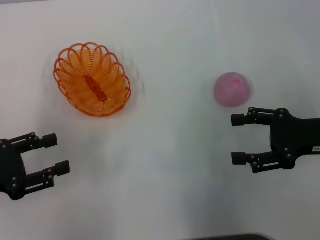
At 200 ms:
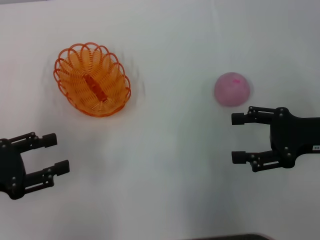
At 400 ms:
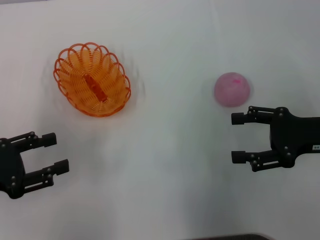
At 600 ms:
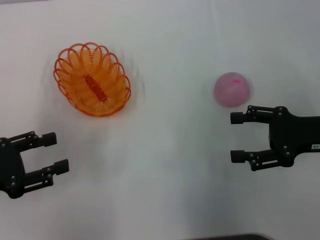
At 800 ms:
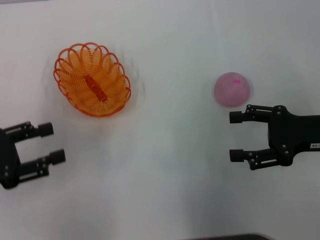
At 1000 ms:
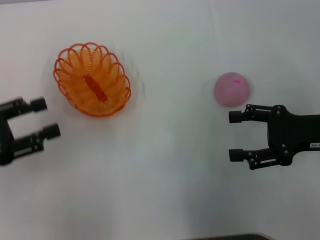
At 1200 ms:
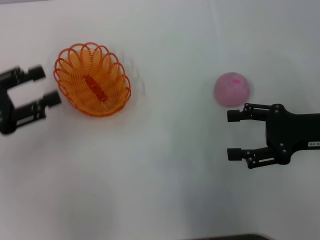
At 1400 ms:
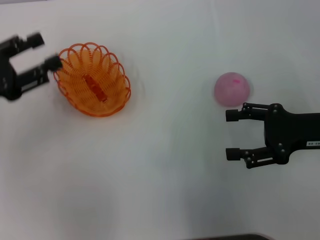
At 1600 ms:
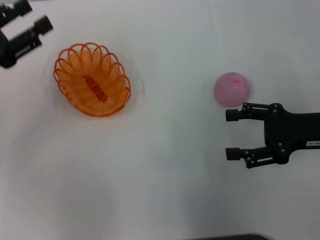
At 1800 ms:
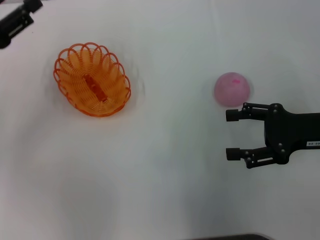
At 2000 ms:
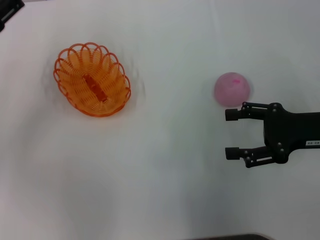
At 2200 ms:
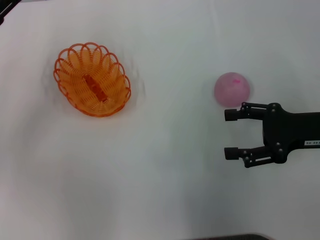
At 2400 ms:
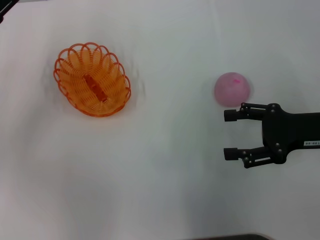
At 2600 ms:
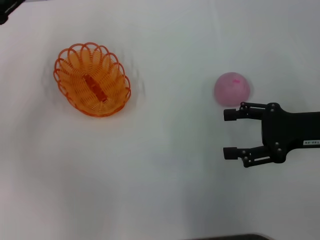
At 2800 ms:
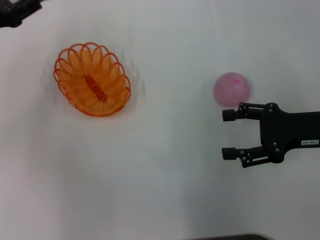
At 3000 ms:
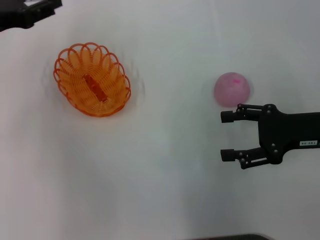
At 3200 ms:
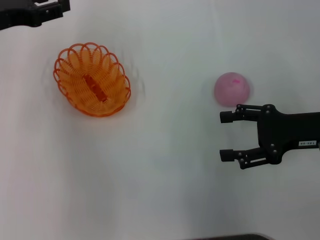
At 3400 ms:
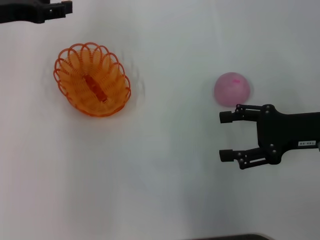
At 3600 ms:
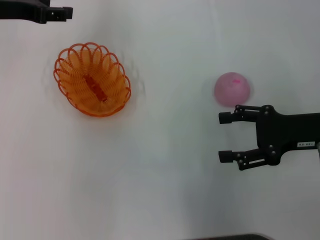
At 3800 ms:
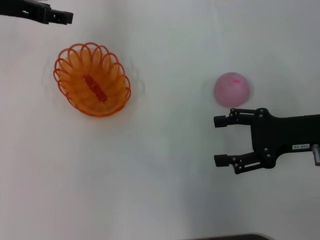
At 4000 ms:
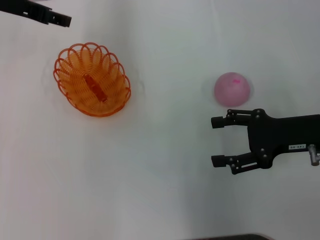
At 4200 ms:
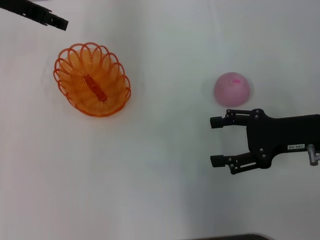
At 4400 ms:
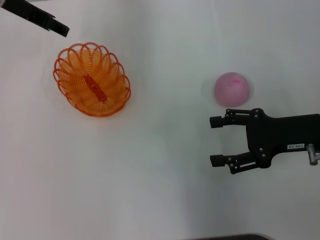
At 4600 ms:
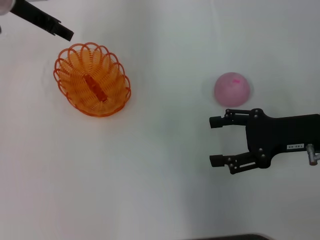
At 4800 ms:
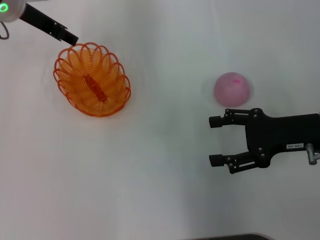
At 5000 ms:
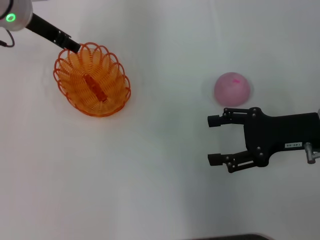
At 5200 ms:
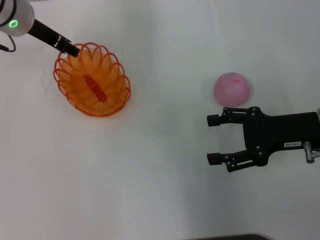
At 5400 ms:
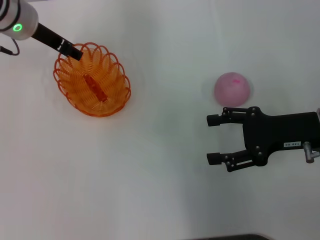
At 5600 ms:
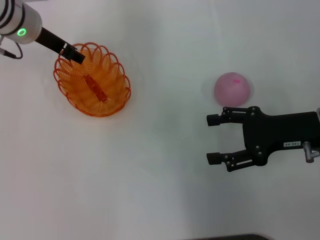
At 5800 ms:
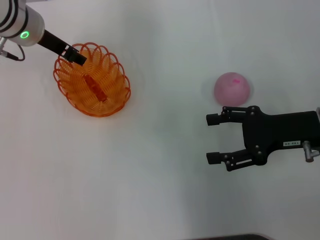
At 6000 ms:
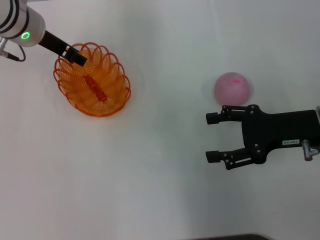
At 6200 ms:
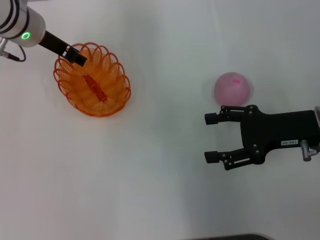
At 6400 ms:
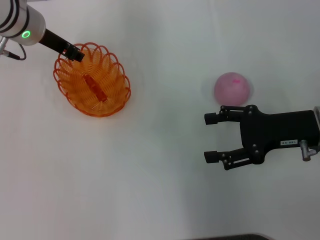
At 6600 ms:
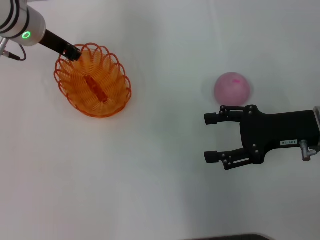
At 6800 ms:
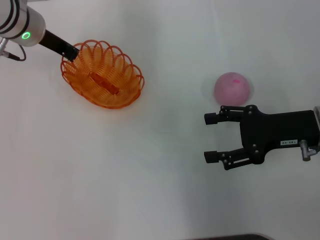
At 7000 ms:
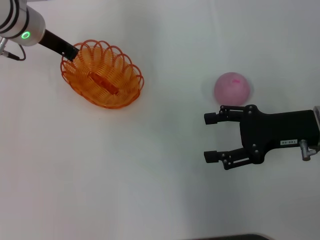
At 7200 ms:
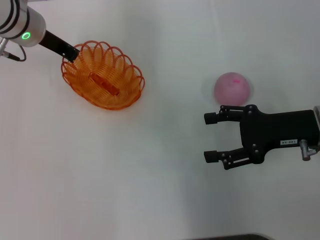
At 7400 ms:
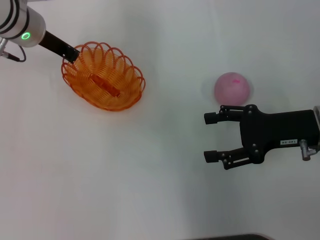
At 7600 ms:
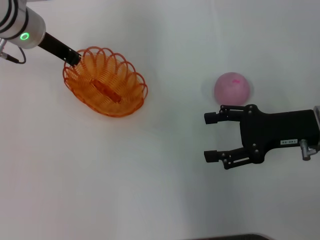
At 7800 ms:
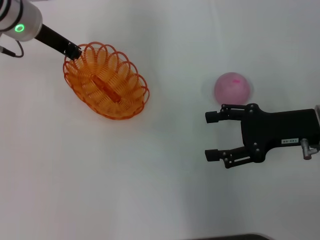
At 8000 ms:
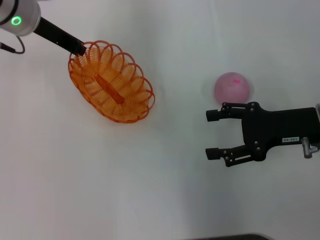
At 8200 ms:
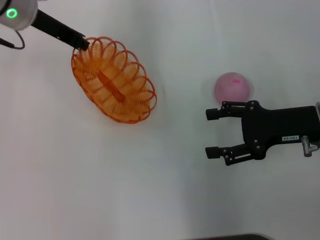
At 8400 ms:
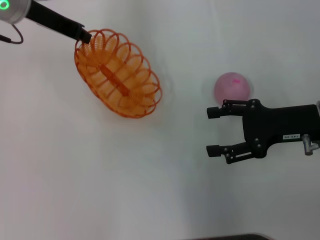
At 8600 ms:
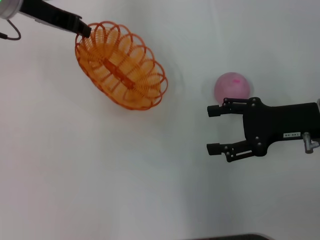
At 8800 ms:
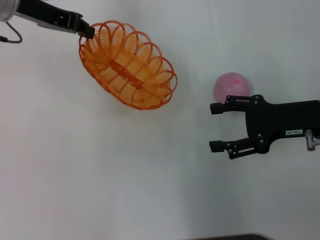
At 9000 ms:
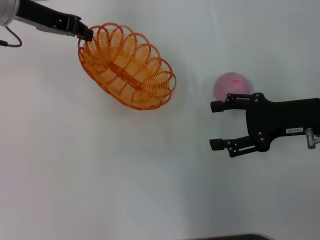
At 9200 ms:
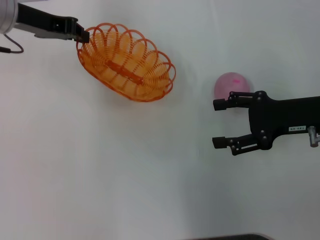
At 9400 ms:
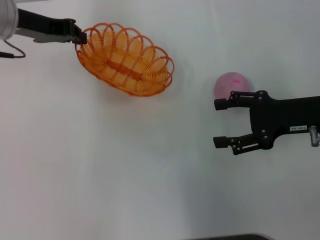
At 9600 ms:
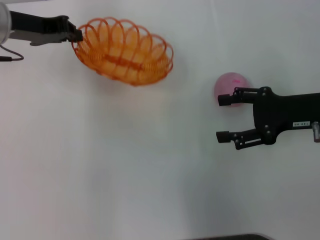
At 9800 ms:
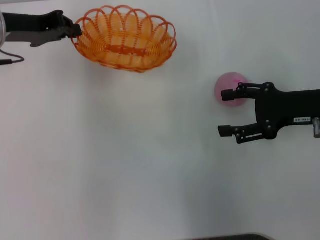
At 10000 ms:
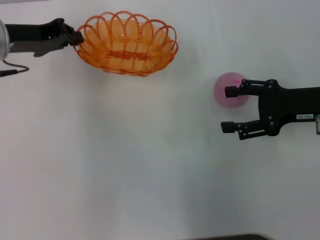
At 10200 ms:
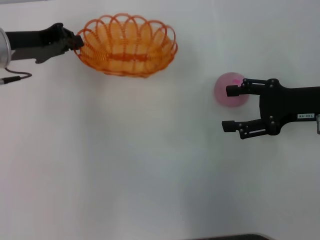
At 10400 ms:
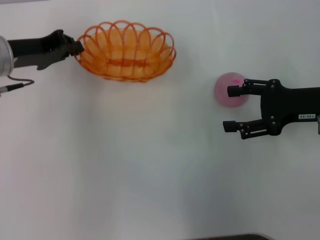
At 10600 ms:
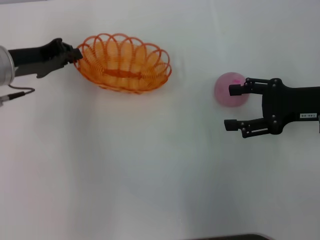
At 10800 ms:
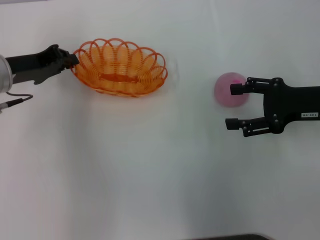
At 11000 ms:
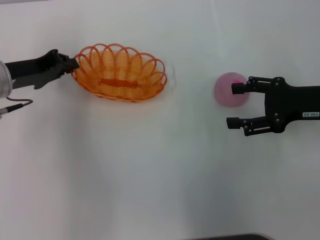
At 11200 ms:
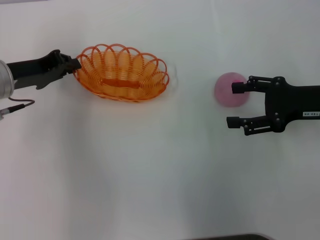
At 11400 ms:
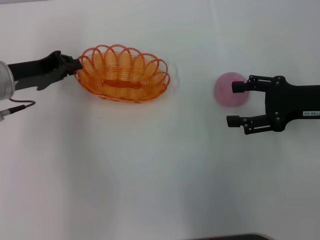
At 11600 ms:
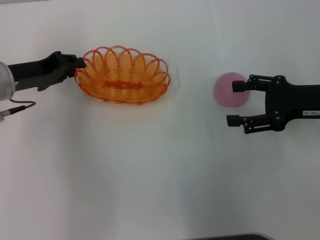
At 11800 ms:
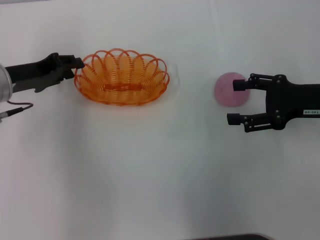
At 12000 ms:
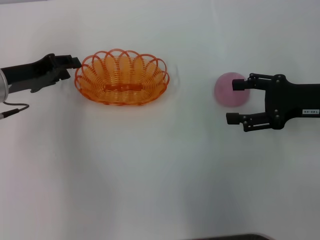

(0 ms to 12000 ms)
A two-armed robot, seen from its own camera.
Step, 0 ms - 8000 ms: Pick up the basket with the left gripper.
0 ms - 1600 ms: The left gripper heads forward, covering about 10 cm.
1600 ms - 3000 ms: The left gripper travels forward by some 5 cm.
3000 ms - 4400 ms: The left gripper moves forward, to the right and upward, roughly 10 cm.
4400 ms - 6000 ms: The left gripper travels downward by approximately 5 cm.
6000 ms - 7600 ms: The left gripper closes its fingers.
7600 ms - 9000 ms: The left gripper travels upward by roughly 5 cm.
9000 ms - 10400 ms: The left gripper moves downward, approximately 10 cm.
10400 ms - 12000 ms: The left gripper opens up.

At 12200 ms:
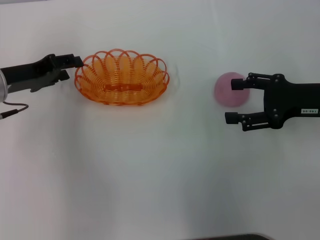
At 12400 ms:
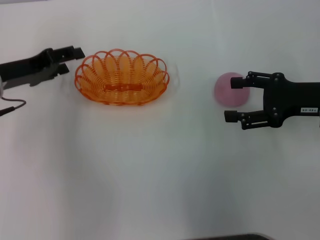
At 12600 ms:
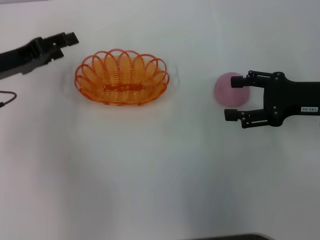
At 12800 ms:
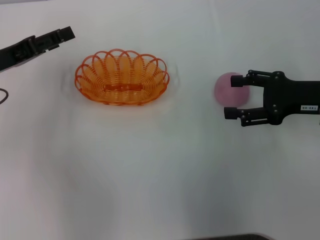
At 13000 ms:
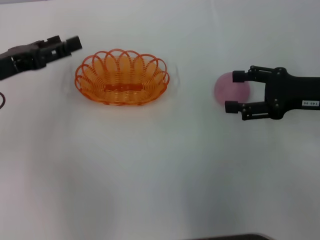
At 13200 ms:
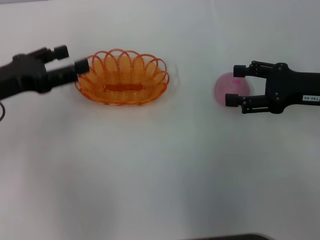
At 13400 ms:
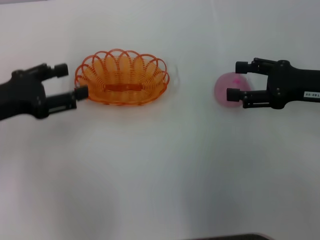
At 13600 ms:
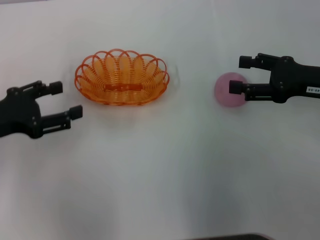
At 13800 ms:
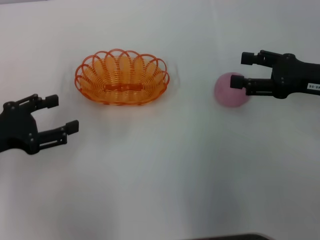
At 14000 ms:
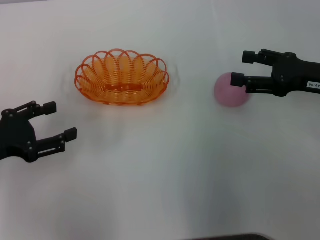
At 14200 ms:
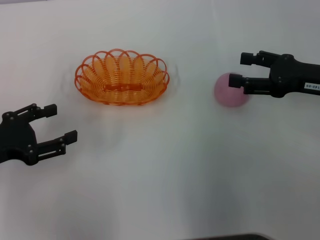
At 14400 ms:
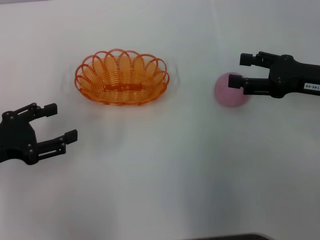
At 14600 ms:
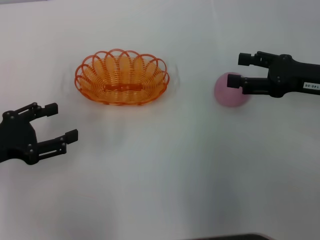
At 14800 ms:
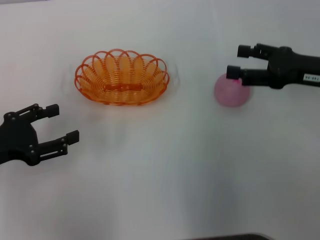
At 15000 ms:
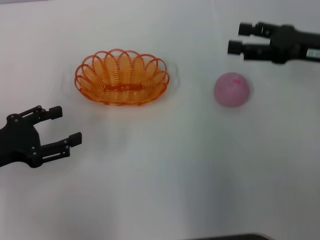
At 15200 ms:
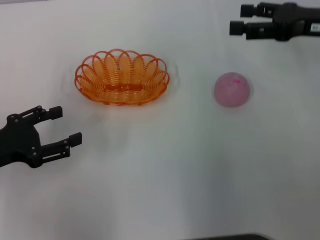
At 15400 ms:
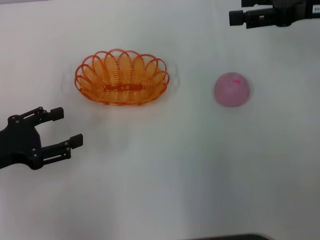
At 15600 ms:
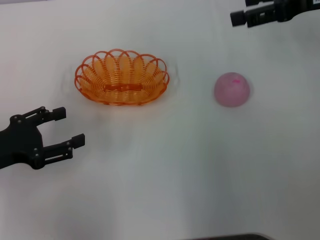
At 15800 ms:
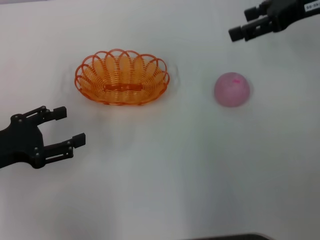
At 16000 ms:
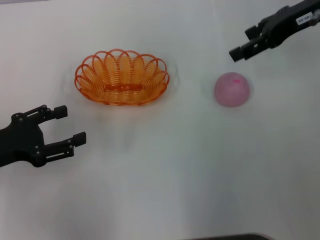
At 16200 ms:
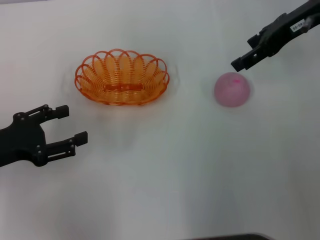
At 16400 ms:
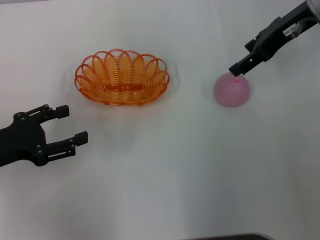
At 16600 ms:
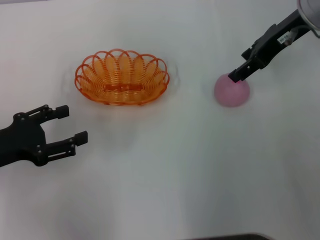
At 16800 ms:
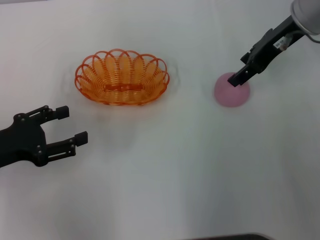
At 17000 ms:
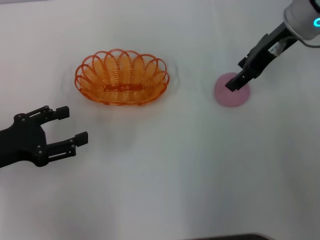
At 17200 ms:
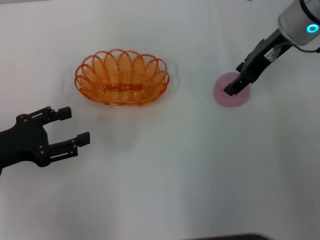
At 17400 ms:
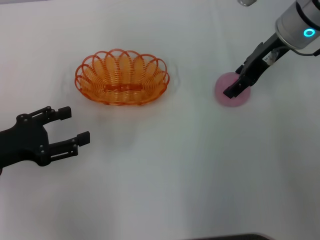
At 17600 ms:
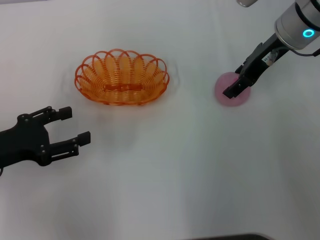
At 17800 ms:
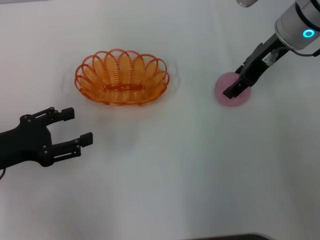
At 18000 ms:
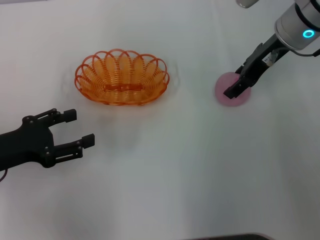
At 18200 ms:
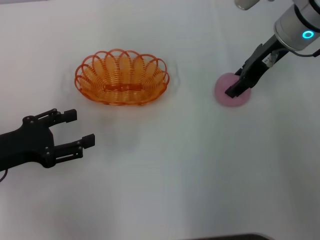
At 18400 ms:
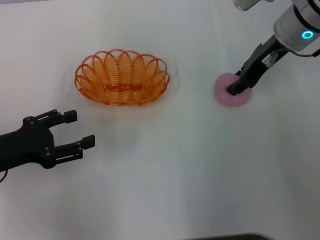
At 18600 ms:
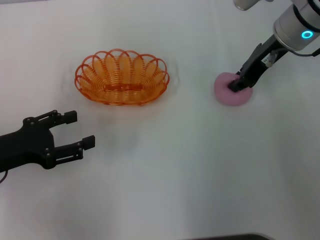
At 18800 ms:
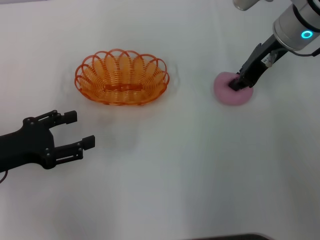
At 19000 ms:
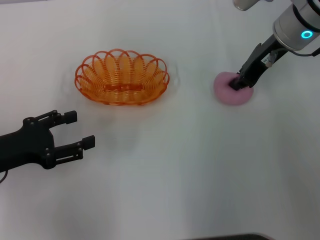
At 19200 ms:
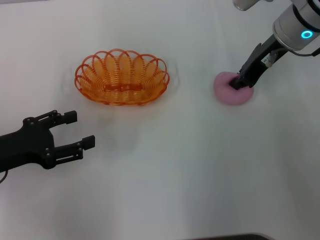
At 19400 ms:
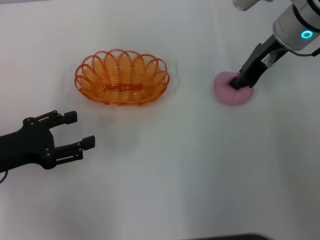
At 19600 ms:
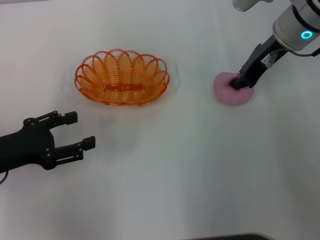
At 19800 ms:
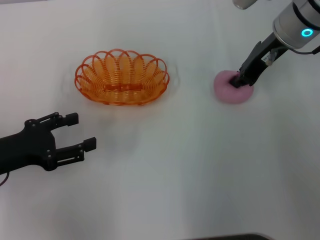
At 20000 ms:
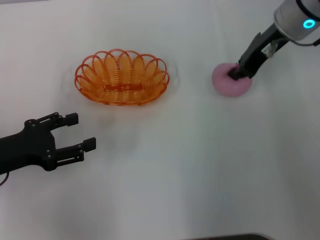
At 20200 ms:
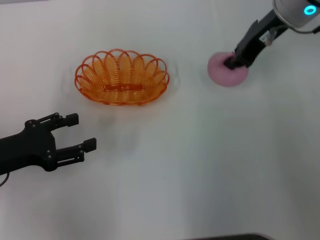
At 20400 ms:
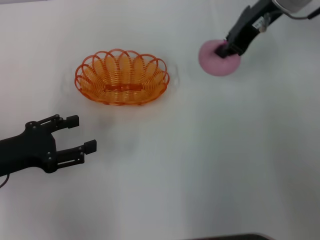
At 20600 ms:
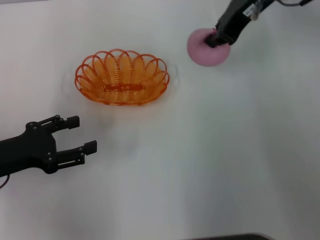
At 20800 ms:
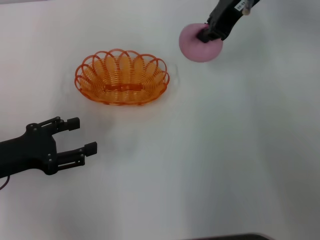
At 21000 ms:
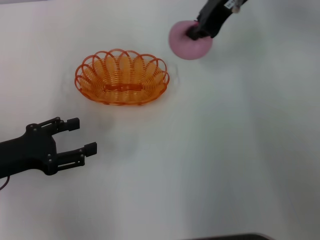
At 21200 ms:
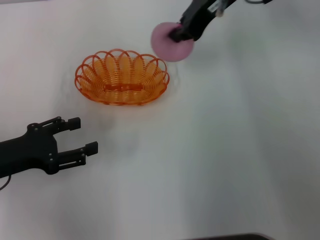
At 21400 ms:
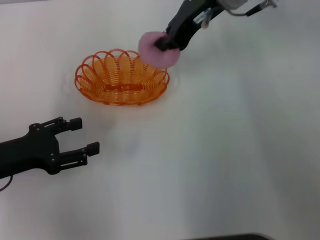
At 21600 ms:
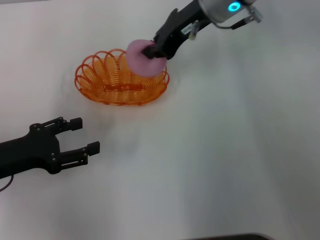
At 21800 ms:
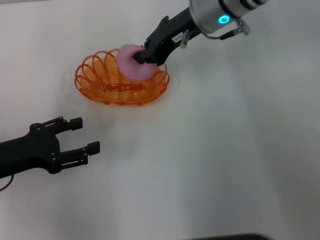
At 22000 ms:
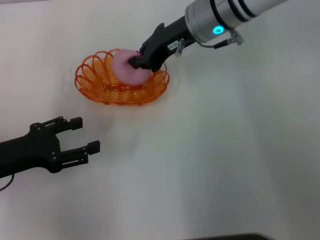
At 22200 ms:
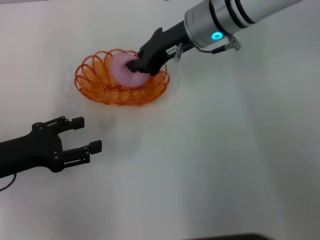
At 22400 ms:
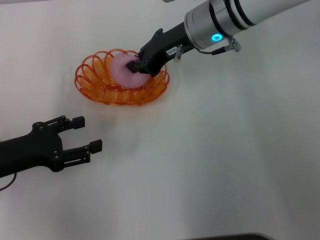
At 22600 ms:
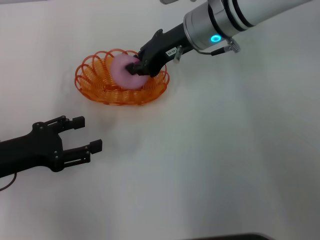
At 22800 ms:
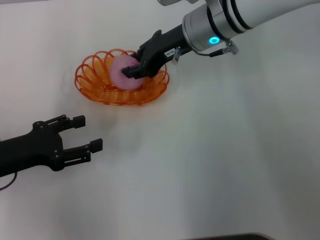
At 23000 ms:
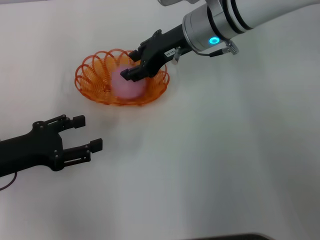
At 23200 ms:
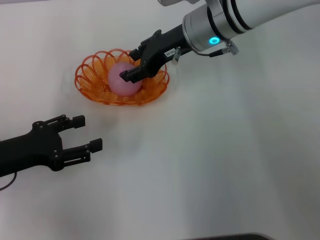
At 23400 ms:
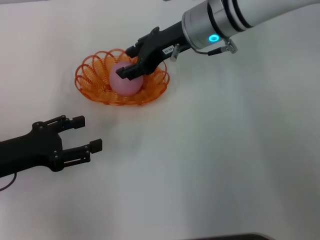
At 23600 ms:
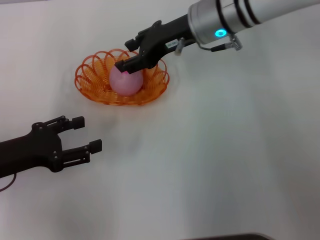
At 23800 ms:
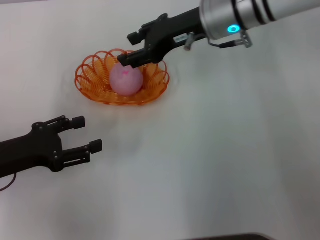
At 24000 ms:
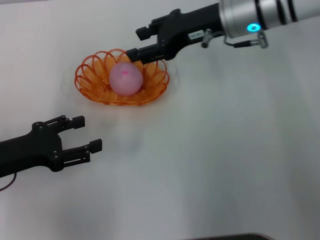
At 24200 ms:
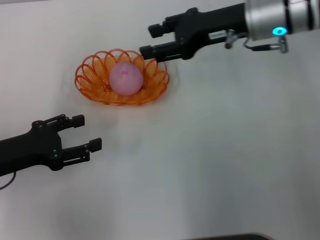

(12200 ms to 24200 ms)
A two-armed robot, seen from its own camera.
Step, 12400 ms - 20600 ms: Pick up the peach with the right gripper.
Step, 20800 ms - 23800 ms: Place the peach into the basket with the right gripper.
12200 ms - 13800 ms: The left gripper moves backward, some 10 cm, and opens.
13800 ms - 15200 ms: The right gripper is displaced upward and forward by approximately 10 cm.
15200 ms - 16600 ms: The right gripper travels to the left by approximately 10 cm.
16600 ms - 18200 ms: The grippers stay close to where they were, moving slightly.
18200 ms - 19800 ms: The right gripper closes its fingers.
19800 ms - 21200 ms: The right gripper is displaced to the left and upward by approximately 10 cm.
21200 ms - 22600 ms: The right gripper heads downward, covering some 10 cm.
22600 ms - 24200 ms: The right gripper goes some 10 cm to the right, and opens up.
